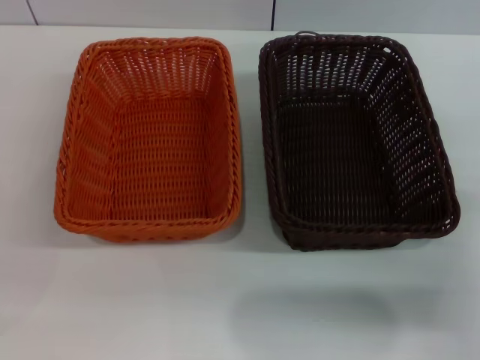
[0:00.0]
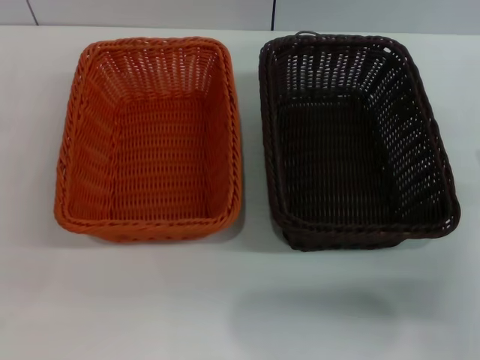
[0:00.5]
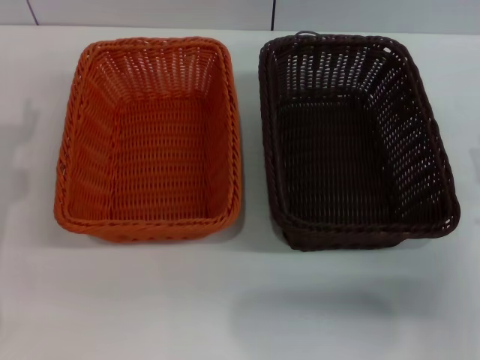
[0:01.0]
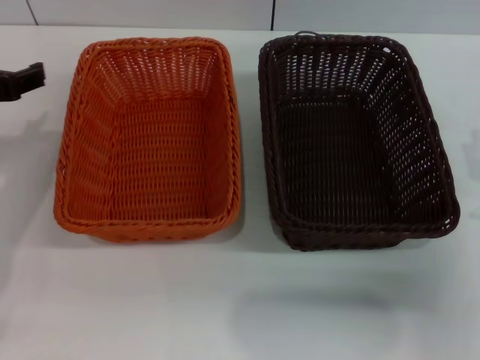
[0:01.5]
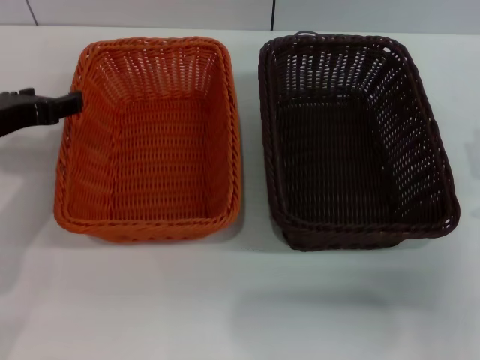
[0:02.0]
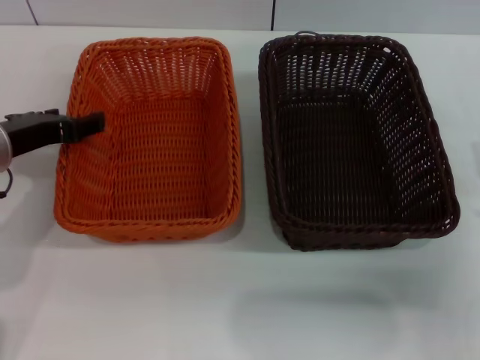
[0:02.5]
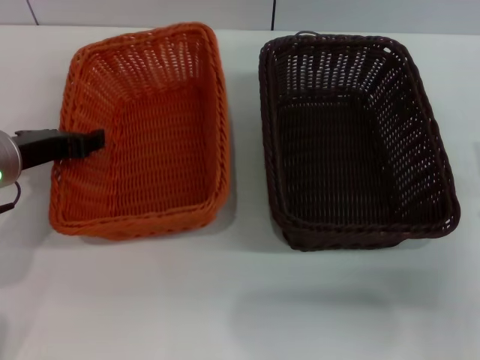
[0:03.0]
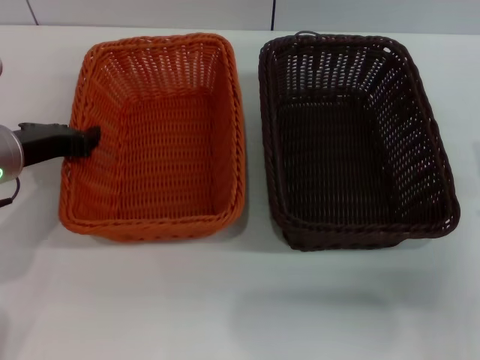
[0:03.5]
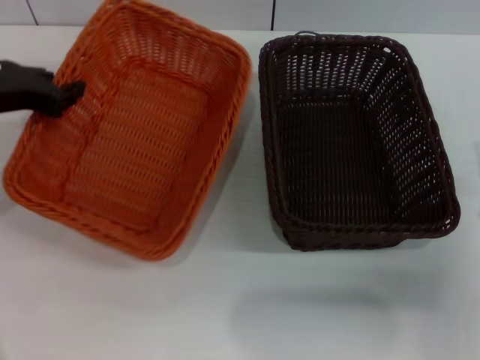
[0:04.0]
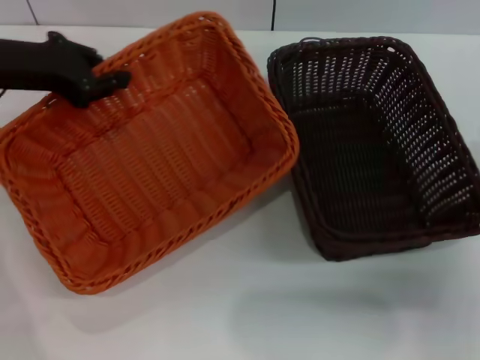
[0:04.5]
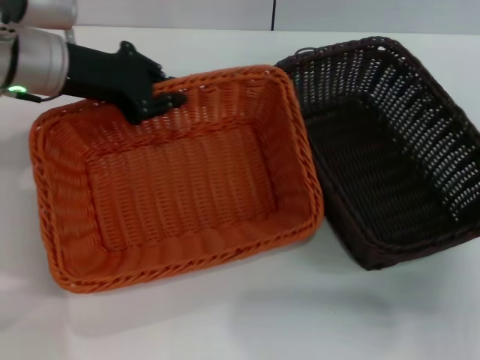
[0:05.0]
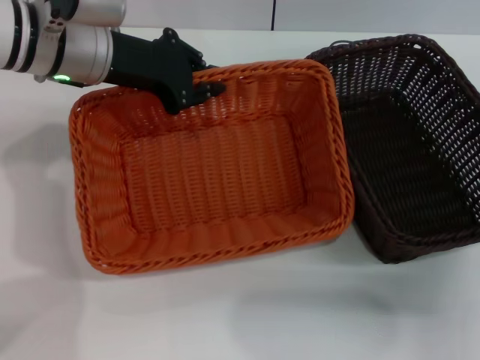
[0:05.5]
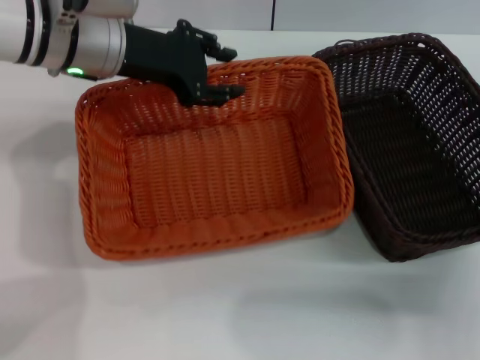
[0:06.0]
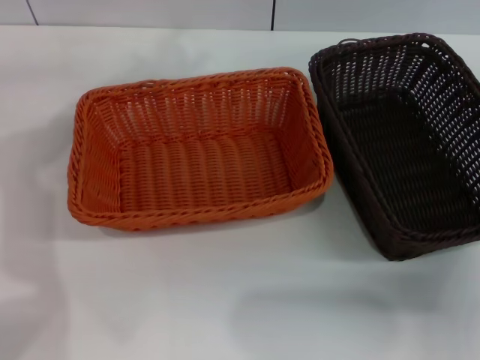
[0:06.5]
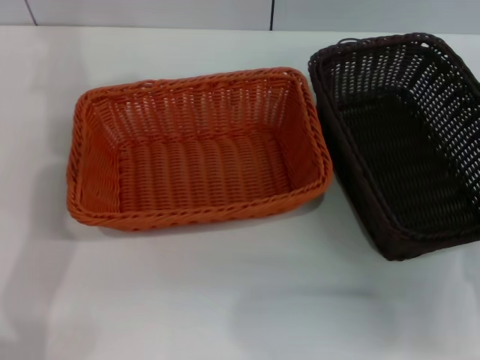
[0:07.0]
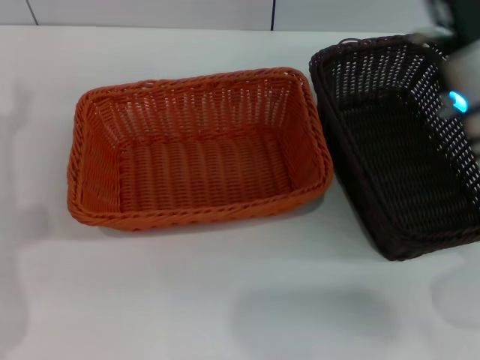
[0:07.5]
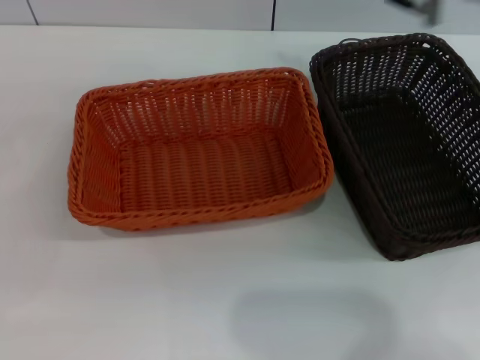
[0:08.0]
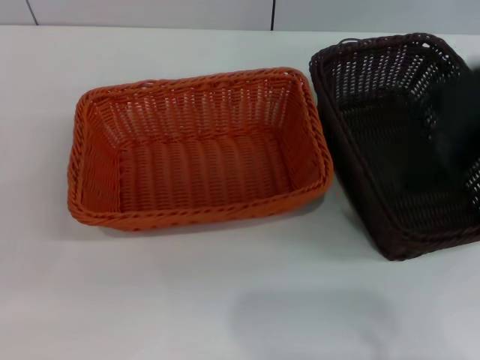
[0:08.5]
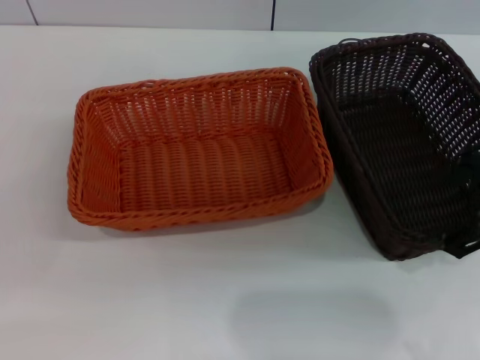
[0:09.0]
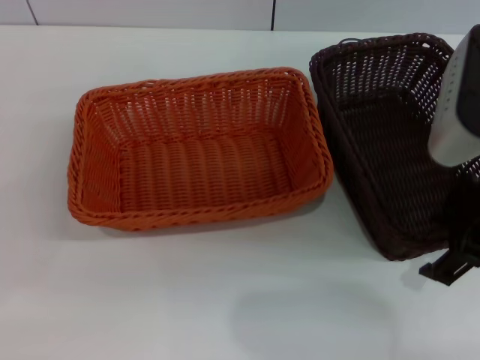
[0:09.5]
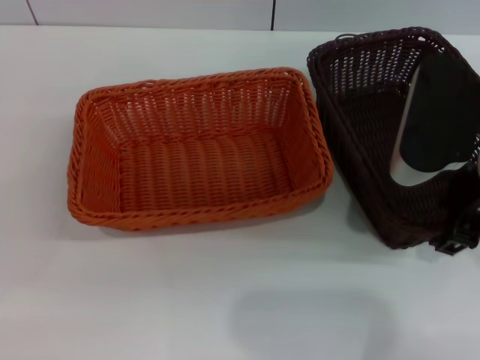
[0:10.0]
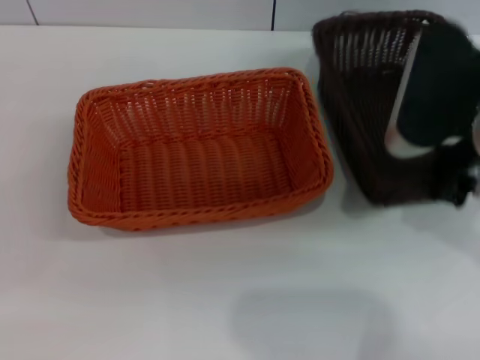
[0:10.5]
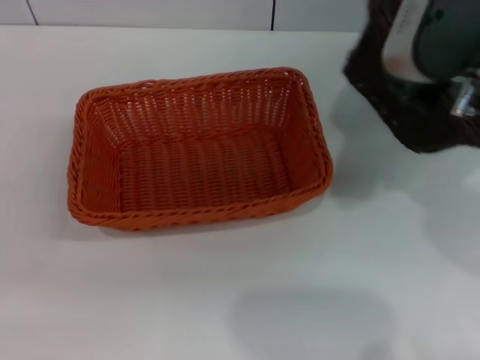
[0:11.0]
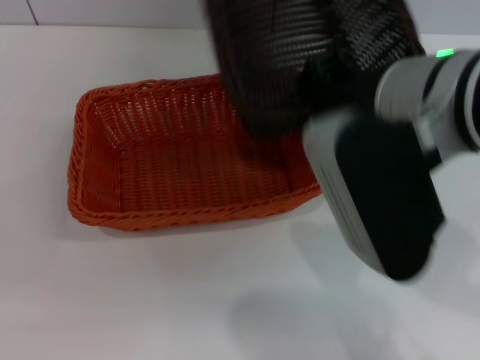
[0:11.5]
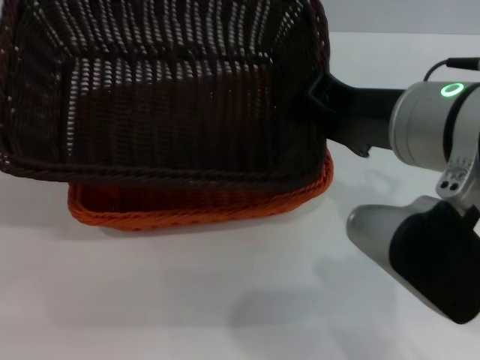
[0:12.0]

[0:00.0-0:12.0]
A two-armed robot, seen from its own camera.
Step, 0:00.0 to 0:03.5: Pick up the light basket with the left gripper.
Step, 0:04.0 to 0:06.0: Place the light basket in the center of view with the left gripper.
Step, 0:06.5 to 0:10.0: Pick up the dark basket with the right gripper.
0:00.0 to 0:02.0: The left gripper shifts roughly 20 cm forward, upward and to the right.
0:02.0 to 0:04.0: The left gripper closes its fingers.
0:04.0 to 0:06.0: The left gripper travels to the right and forward by approximately 15 cm.
0:06.0 to 0:08.0: The left gripper moves backward, to the left and downward, about 30 cm, and opens. Meanwhile the right gripper moves upward, to the left and forward, roughly 30 cm.
0:08.0 to 0:10.0: The right gripper heads downward, to the right and backward, covering about 10 cm.
0:10.0 to 0:12.0: The right gripper moves to the left, roughly 5 cm, and closes up.

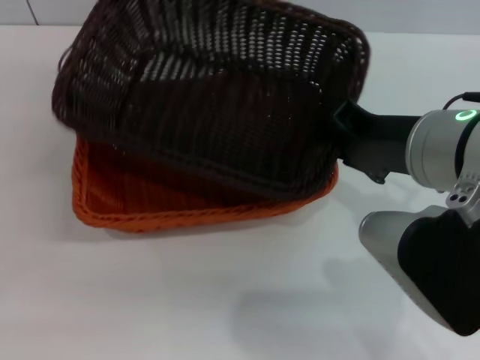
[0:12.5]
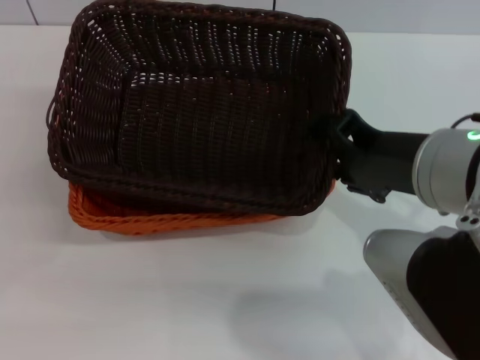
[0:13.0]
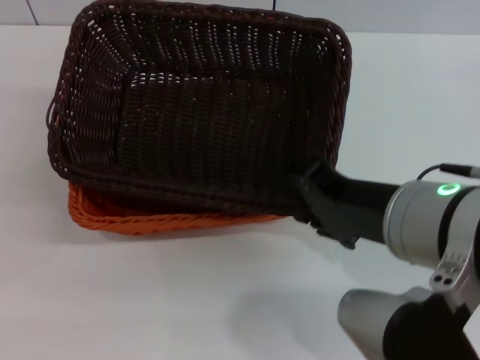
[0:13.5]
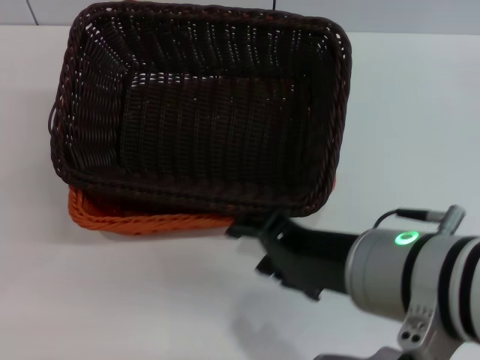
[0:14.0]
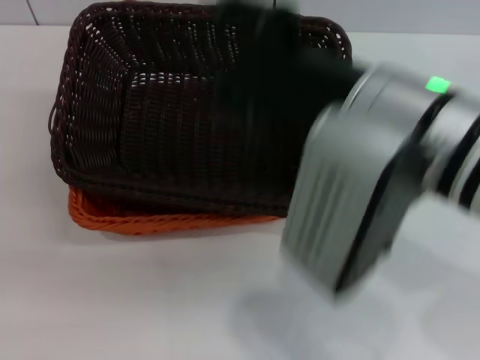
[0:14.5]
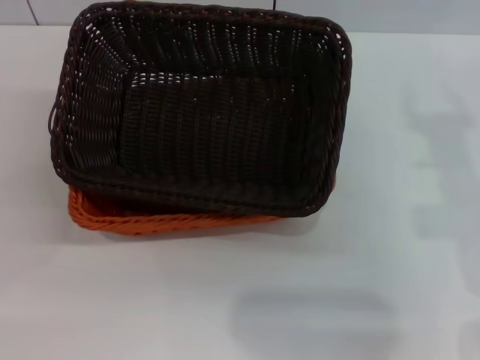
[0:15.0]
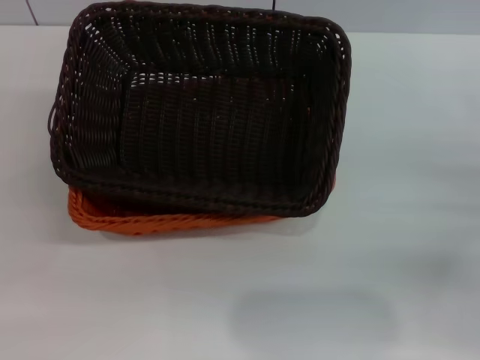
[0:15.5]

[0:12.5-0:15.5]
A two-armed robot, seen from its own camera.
0:12.5 to 0:14.0: The right gripper is displaced backward by roughly 5 cm, and opens its fingers.
0:14.0 to 0:15.5: The right gripper is displaced to the right and downward by some 25 cm.
